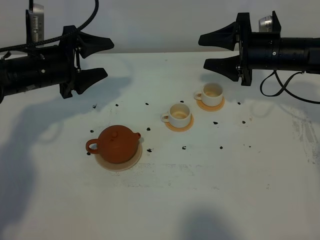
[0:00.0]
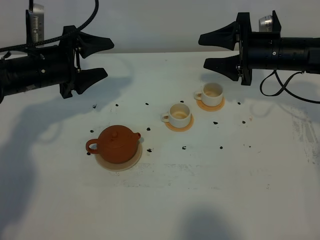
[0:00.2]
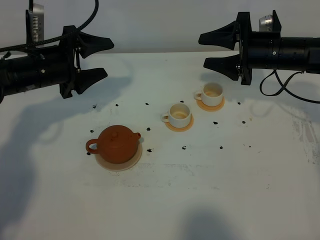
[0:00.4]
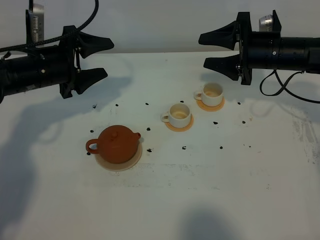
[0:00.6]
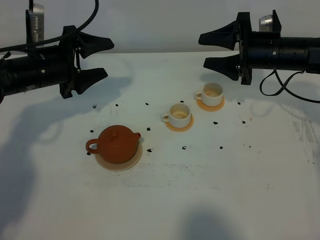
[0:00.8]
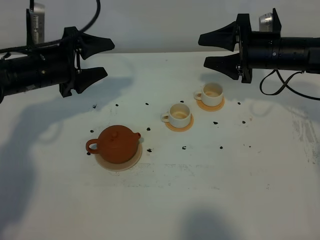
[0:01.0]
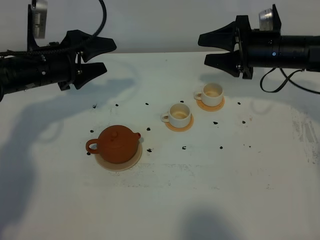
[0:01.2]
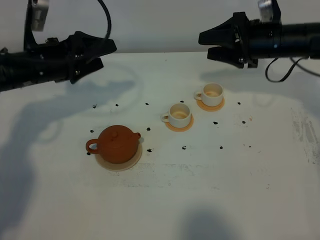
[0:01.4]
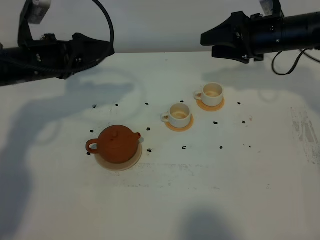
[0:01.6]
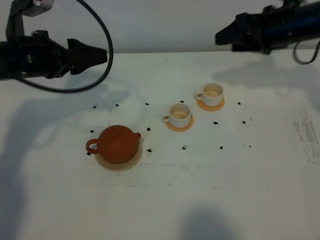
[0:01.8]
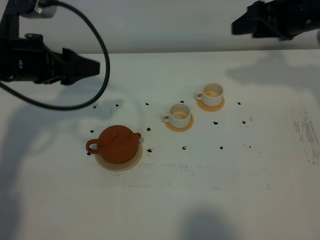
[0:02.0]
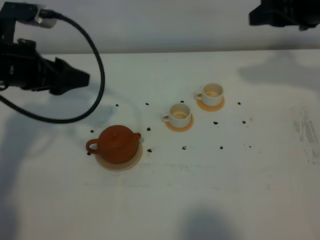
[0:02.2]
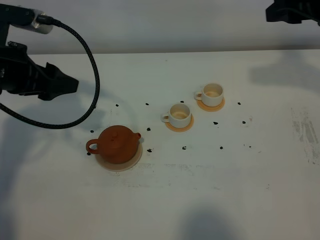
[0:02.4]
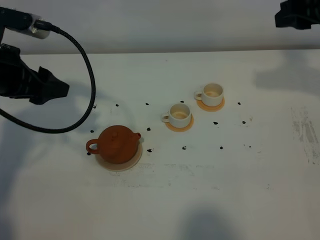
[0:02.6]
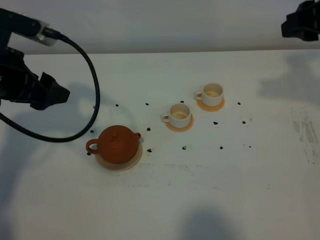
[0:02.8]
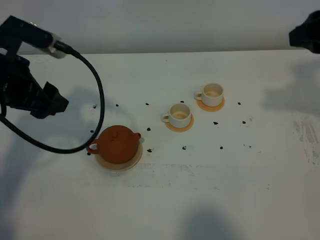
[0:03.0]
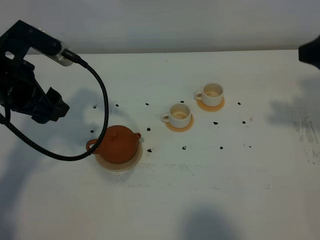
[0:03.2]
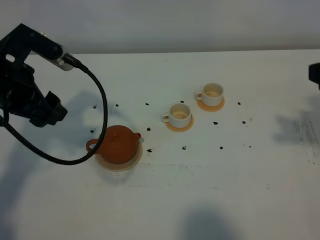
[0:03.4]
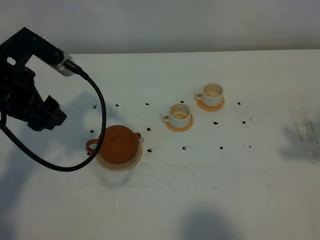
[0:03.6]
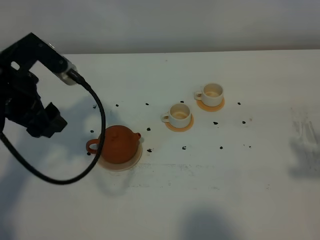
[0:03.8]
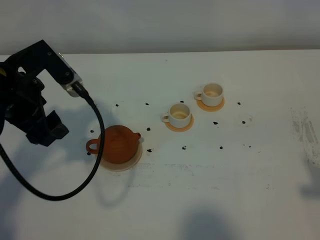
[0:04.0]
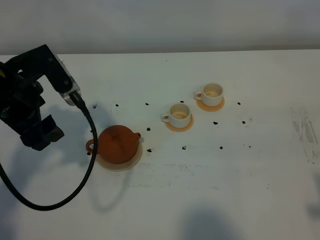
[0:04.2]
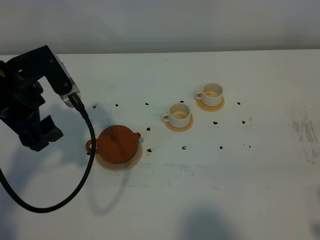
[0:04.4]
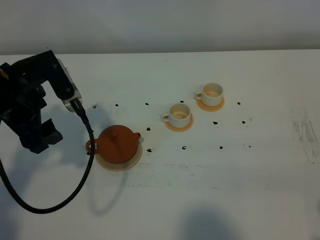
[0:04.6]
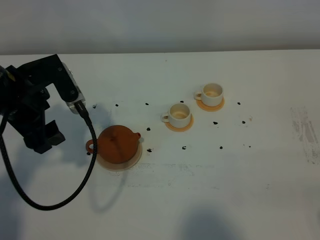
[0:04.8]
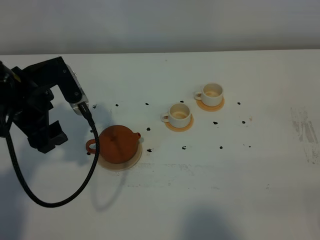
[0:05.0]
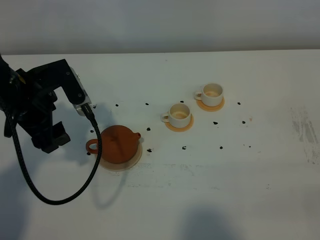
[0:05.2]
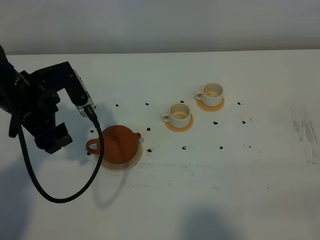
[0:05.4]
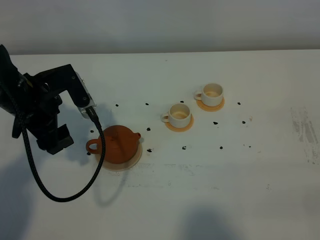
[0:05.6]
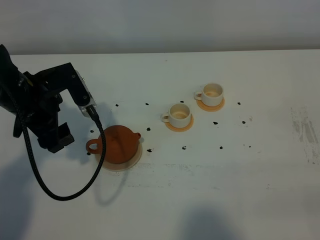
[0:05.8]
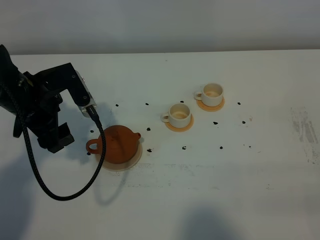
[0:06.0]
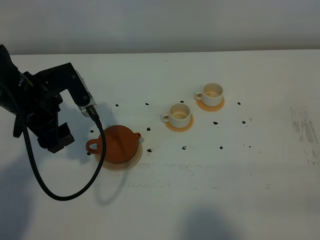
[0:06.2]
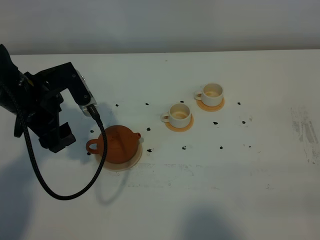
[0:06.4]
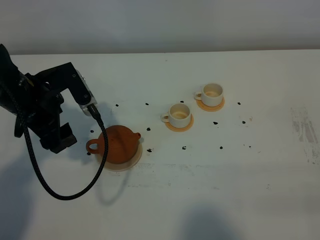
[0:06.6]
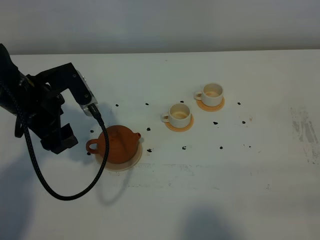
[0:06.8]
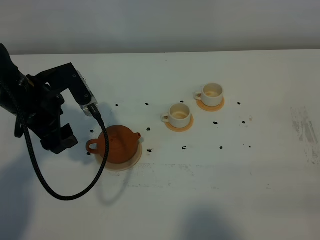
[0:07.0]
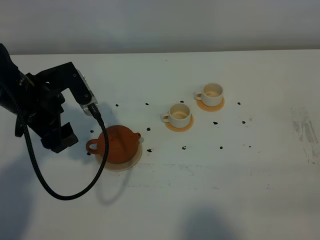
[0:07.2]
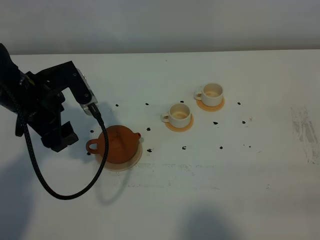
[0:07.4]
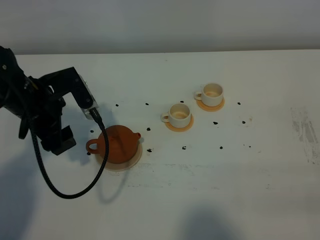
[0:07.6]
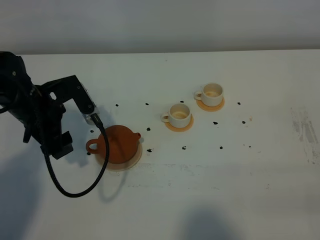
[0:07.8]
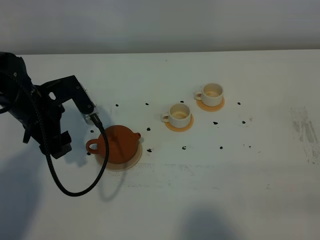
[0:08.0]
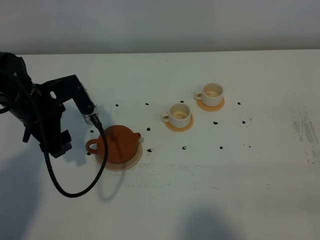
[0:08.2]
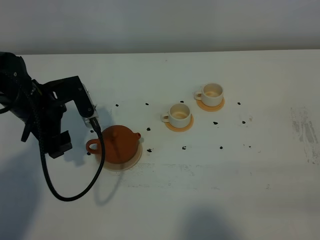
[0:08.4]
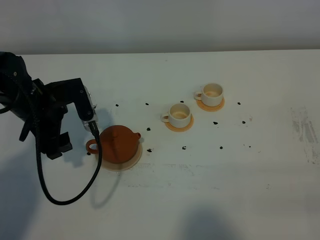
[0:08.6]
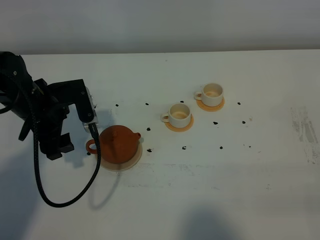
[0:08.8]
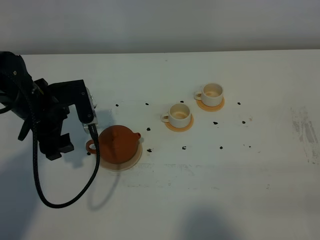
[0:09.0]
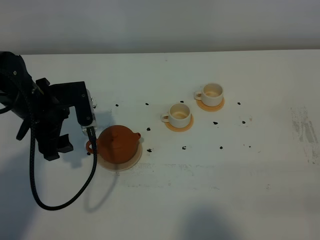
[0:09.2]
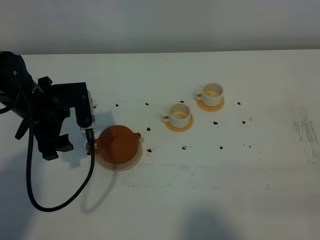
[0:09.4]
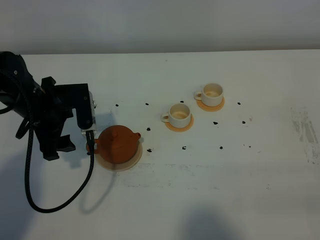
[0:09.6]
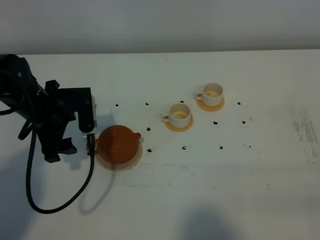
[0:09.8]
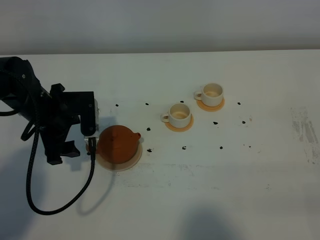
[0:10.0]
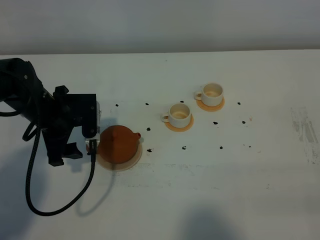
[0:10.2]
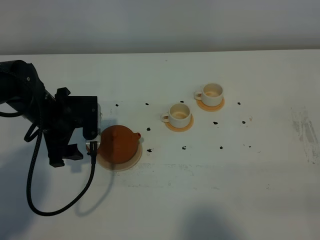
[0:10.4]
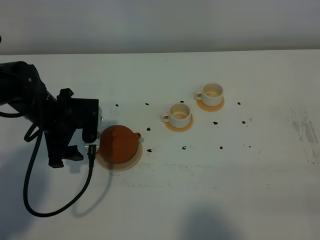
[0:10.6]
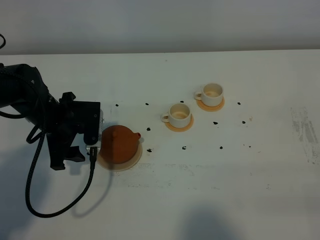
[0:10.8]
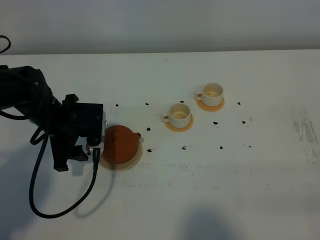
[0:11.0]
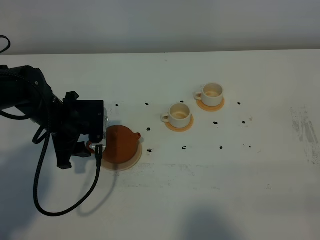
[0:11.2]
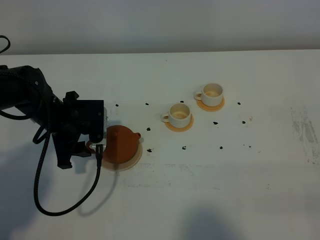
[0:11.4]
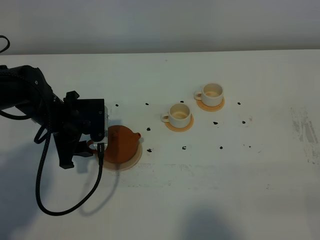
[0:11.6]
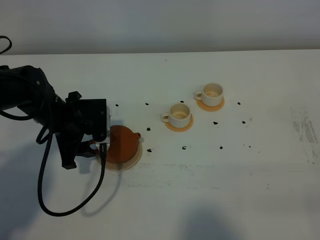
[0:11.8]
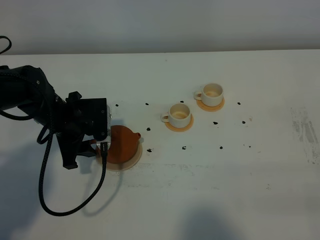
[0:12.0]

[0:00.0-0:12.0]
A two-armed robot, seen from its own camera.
Task of the whole recording: grasp the brown teapot and pour the tea into the two white teacups one by one, put the brown teapot back in its original place.
0:01.6 to 0:03.0: The left gripper moves backward and upward, about 10 cm, while the right gripper travels backward, upward and to the right by about 20 cm.
0:03.0 to 0:04.4: The right gripper is displaced backward by approximately 25 cm.
0:04.4 to 0:06.0: The left gripper travels downward by some 5 cm.
0:06.0 to 0:09.0: The grippers stay close to where they were, moving slightly.
0:09.0 to 0:12.0: The grippers move only a little.

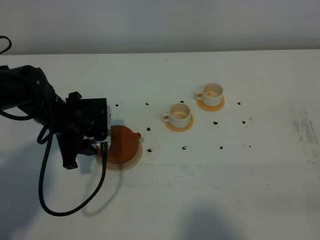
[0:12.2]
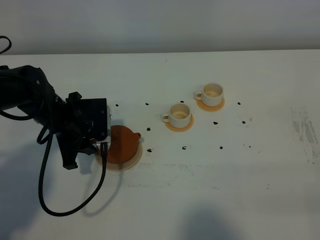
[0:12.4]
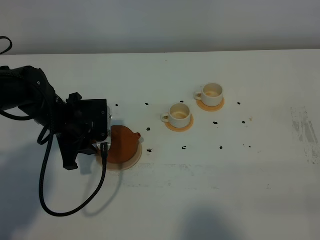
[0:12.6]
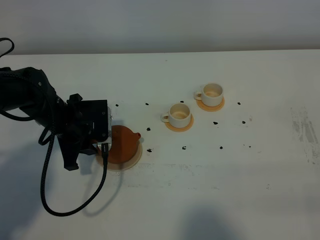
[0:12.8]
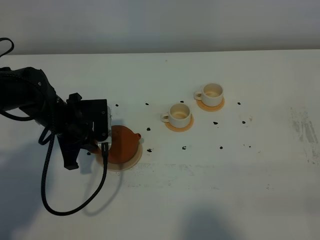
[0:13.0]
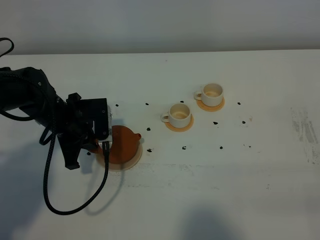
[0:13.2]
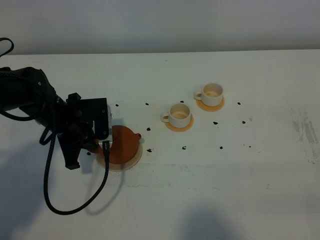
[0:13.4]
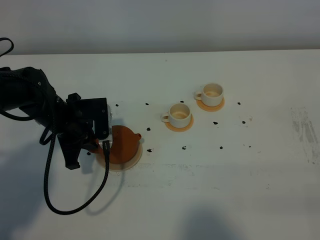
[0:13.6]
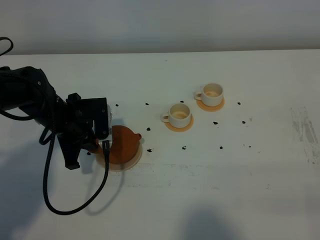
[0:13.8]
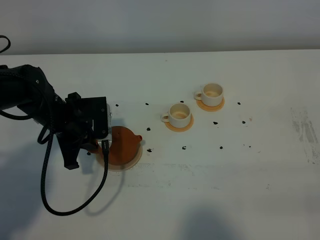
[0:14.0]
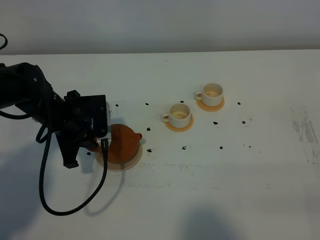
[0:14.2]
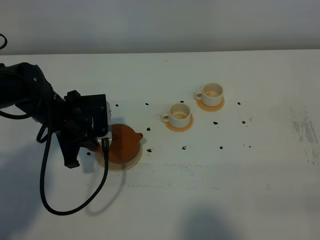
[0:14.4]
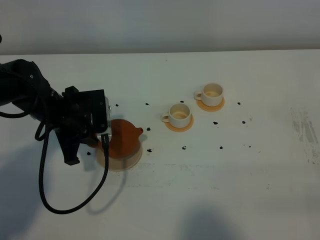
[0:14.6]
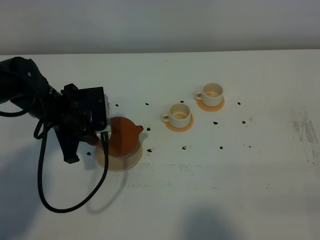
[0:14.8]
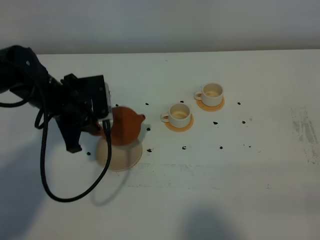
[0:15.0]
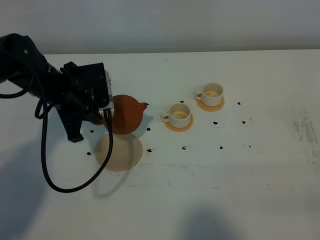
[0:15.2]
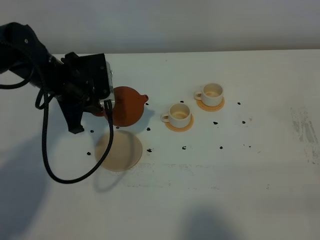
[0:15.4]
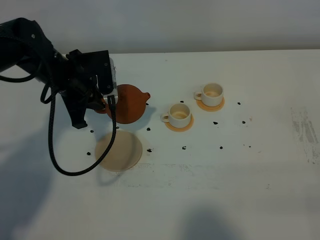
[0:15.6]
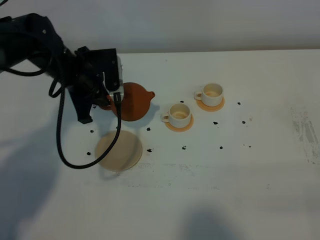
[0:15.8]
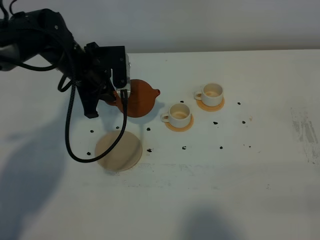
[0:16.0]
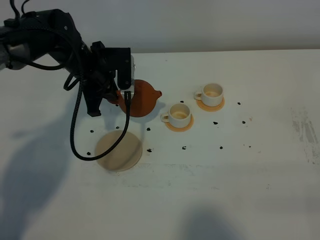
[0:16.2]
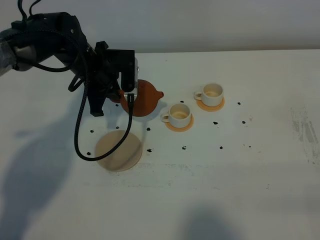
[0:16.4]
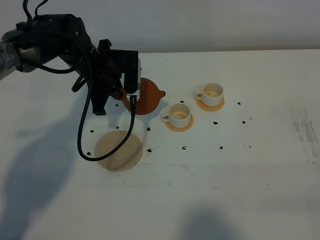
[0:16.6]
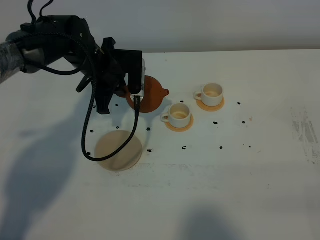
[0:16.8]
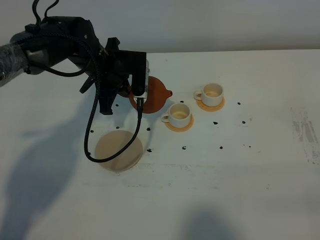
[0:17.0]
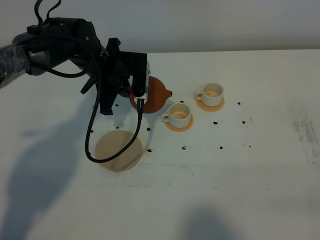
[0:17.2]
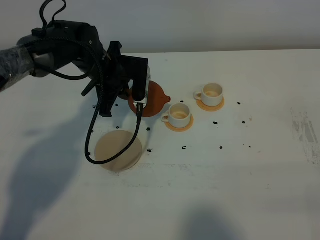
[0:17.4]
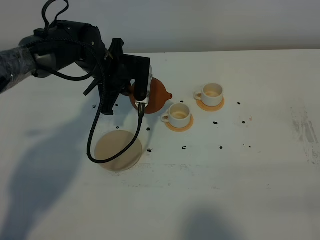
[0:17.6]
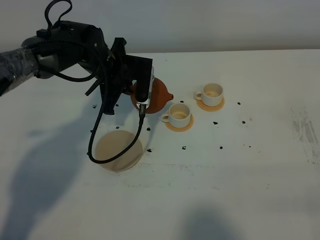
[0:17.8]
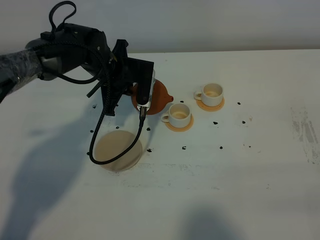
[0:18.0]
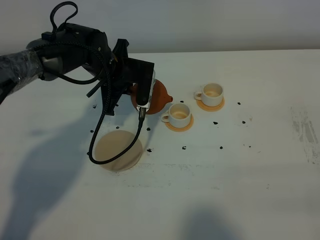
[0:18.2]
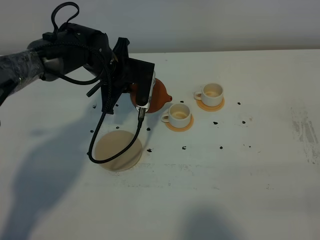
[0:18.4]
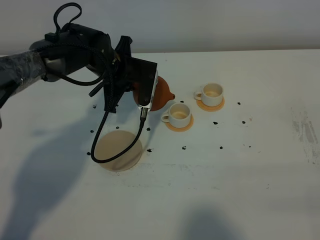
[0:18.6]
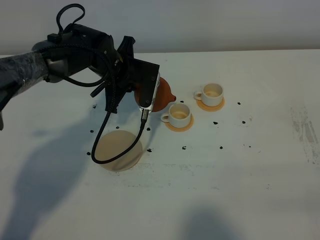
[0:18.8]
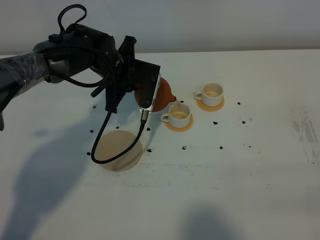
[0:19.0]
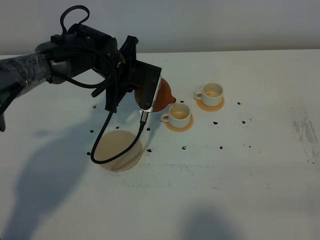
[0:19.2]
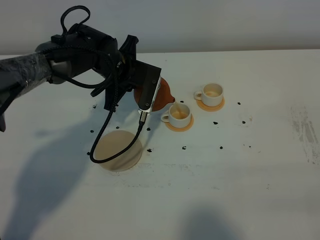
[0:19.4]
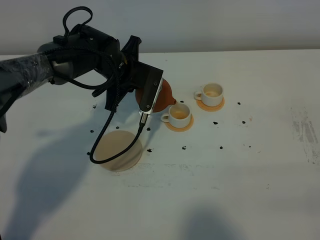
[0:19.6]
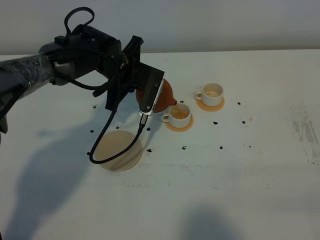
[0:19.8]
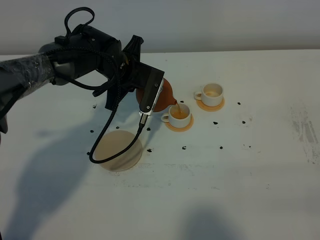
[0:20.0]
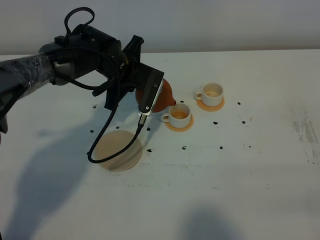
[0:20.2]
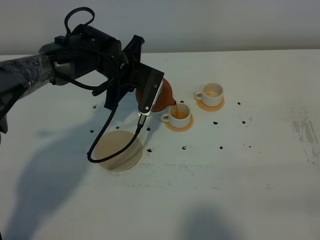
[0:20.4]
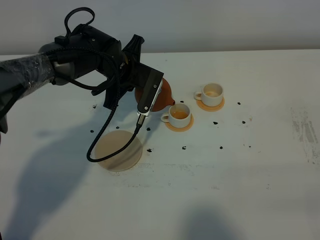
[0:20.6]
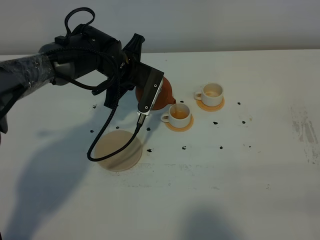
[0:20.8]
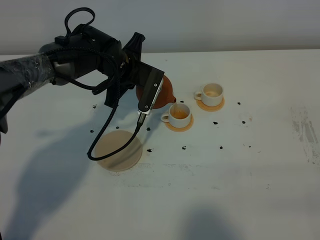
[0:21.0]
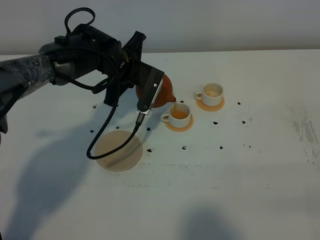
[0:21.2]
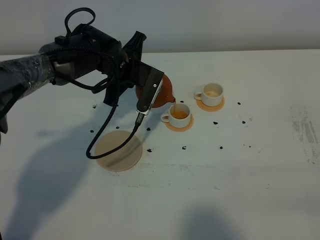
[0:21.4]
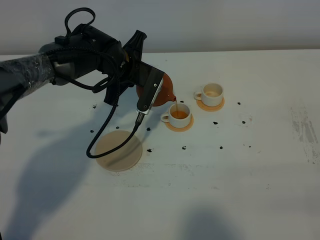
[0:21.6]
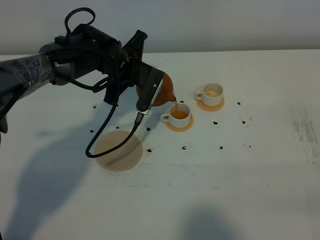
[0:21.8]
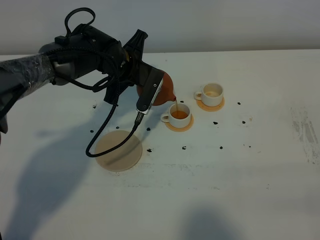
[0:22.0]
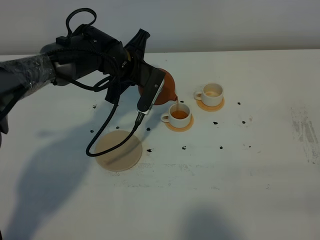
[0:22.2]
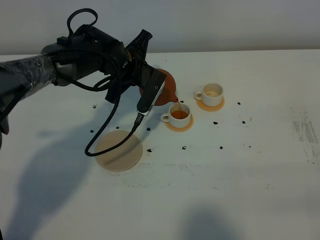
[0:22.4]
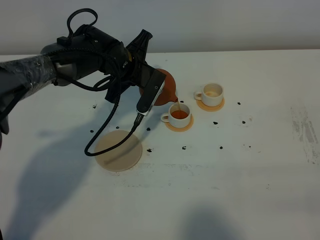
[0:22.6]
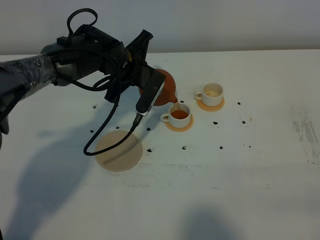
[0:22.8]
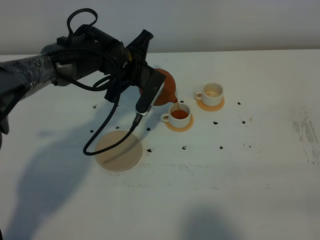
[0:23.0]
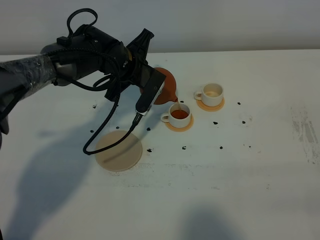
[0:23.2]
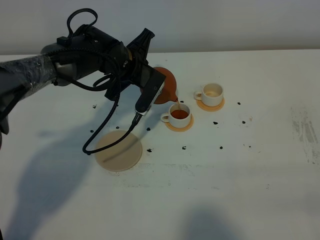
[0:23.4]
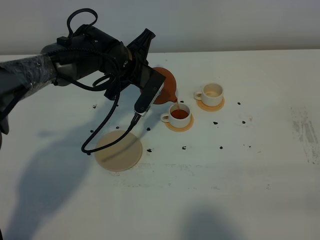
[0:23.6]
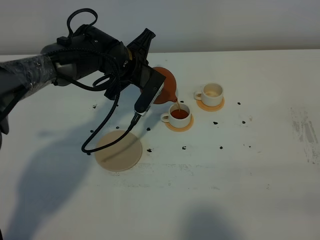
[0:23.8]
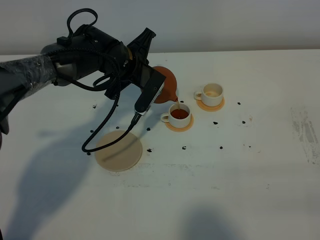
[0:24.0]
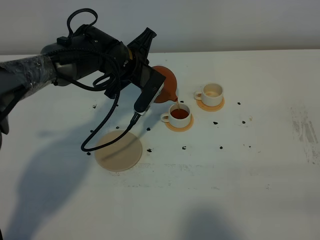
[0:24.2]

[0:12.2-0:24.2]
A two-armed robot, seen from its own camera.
Task of the whole recording: grasp the brown teapot and pour the tea into the two white teacups one by one, put the brown teapot back in its original place.
Step, 0:12.2 to 0:14.4: Pick up the teapot with the left gripper.
0:12.2 to 0:13.8: The left gripper closes its fingers.
0:13.8 to 0:15.2: The left gripper travels upward by about 5 cm.
0:15.2 to 0:16.6: The left gripper shifts about 10 cm forward and to the right.
0:16.6 to 0:18.2: The grippers stay close to where they were, moving slightly.
0:18.2 to 0:21.2: The grippers make only small movements.
0:21.2 to 0:24.2: There are only small adjustments of the grippers.
